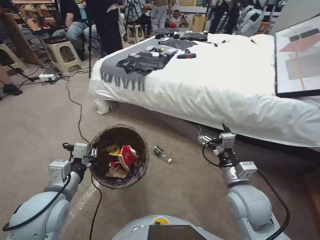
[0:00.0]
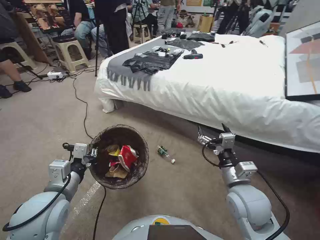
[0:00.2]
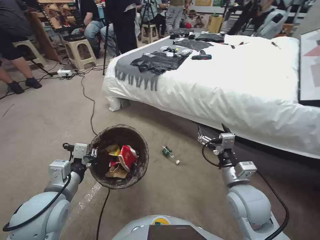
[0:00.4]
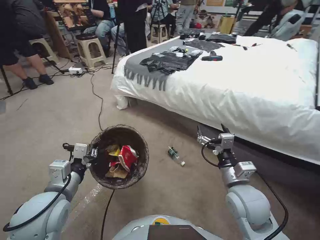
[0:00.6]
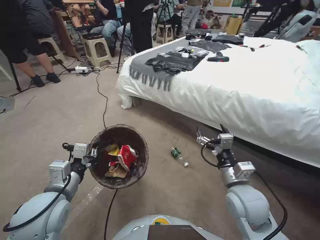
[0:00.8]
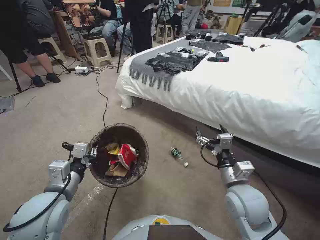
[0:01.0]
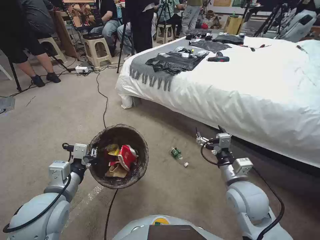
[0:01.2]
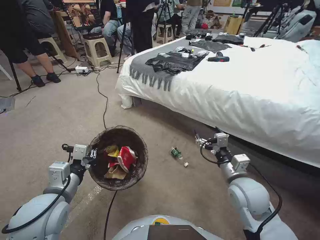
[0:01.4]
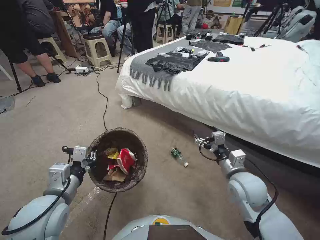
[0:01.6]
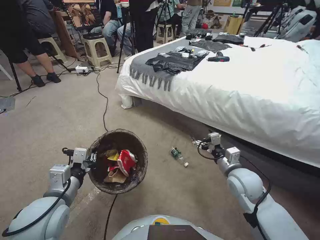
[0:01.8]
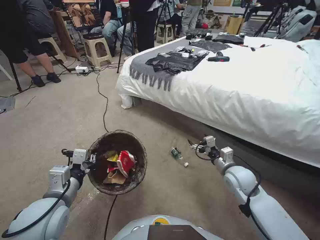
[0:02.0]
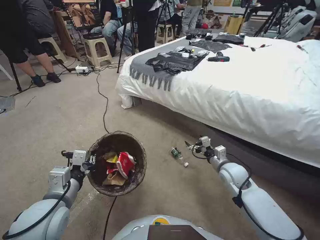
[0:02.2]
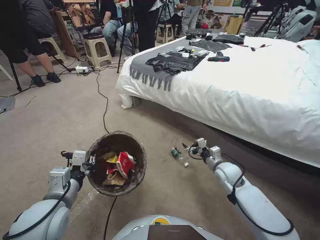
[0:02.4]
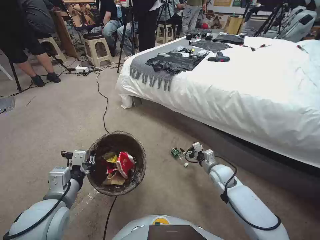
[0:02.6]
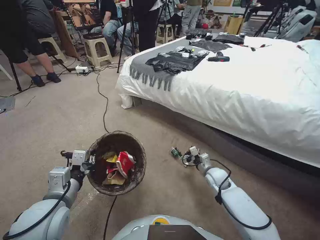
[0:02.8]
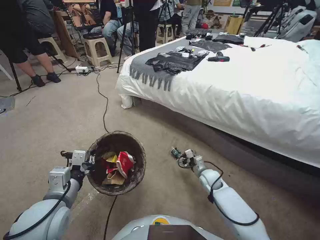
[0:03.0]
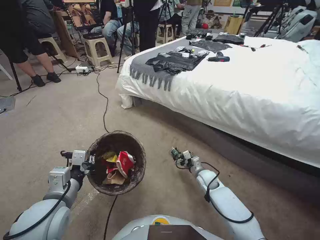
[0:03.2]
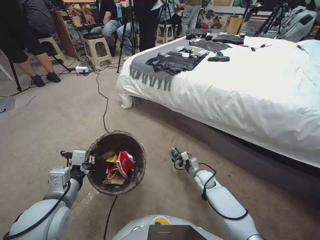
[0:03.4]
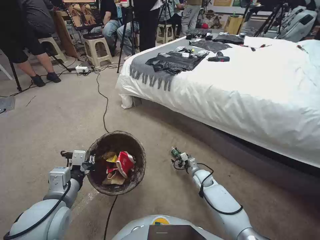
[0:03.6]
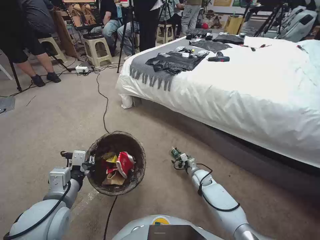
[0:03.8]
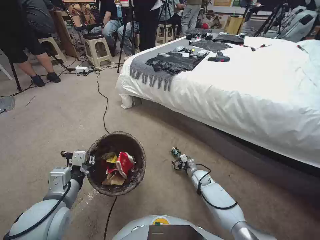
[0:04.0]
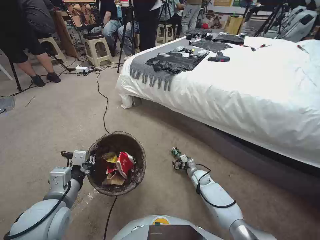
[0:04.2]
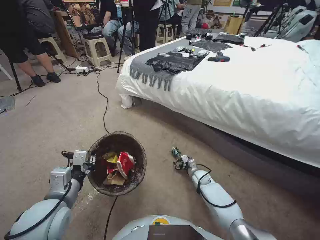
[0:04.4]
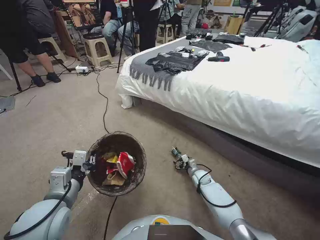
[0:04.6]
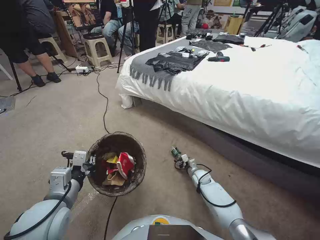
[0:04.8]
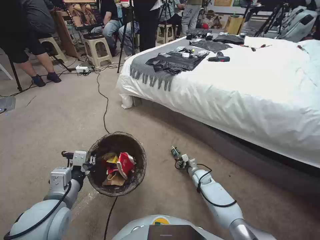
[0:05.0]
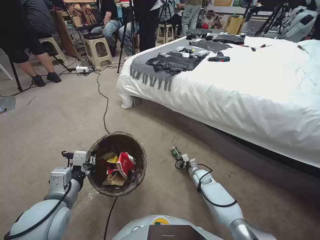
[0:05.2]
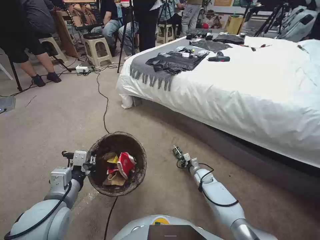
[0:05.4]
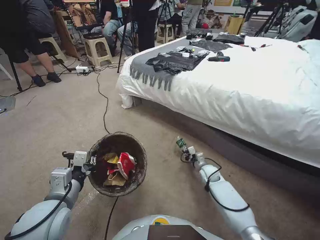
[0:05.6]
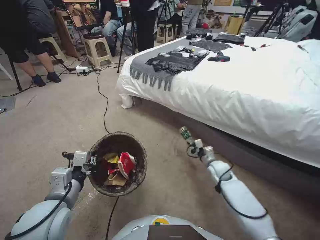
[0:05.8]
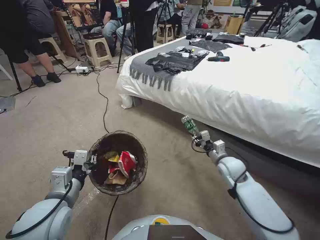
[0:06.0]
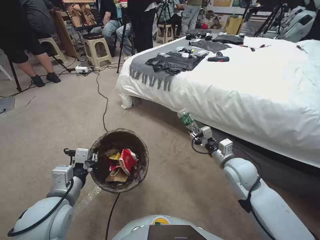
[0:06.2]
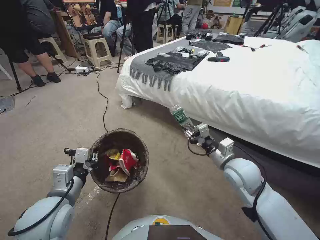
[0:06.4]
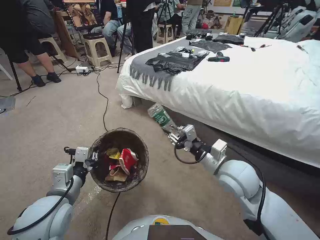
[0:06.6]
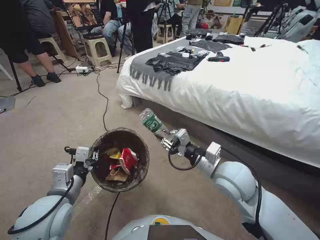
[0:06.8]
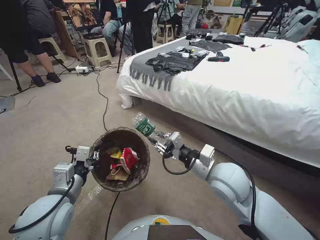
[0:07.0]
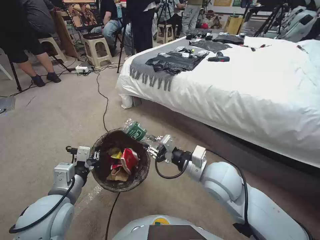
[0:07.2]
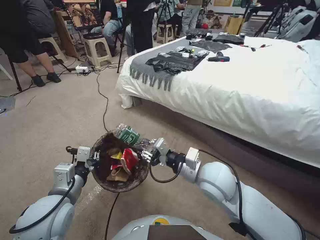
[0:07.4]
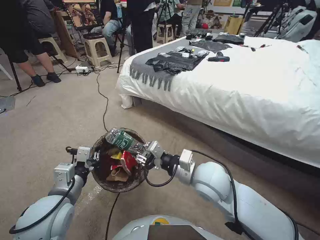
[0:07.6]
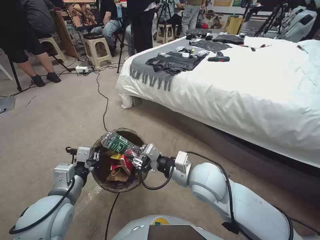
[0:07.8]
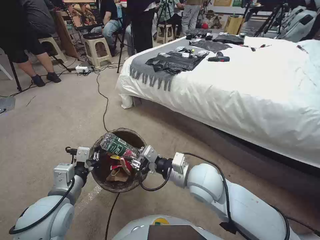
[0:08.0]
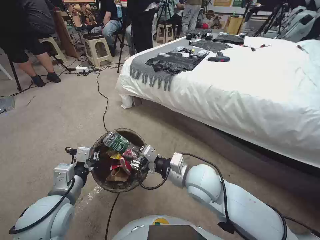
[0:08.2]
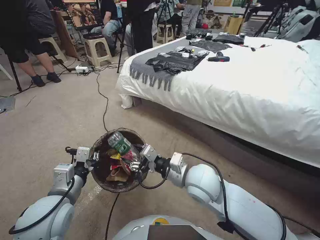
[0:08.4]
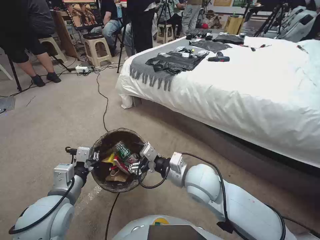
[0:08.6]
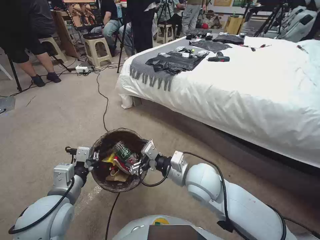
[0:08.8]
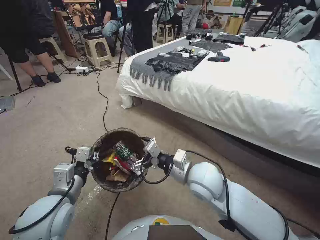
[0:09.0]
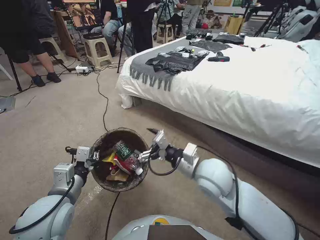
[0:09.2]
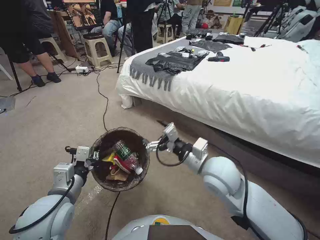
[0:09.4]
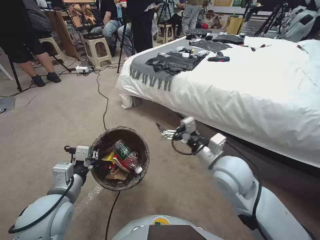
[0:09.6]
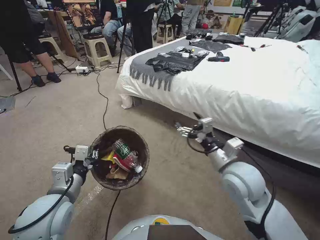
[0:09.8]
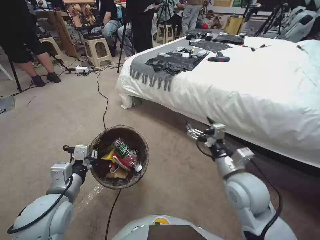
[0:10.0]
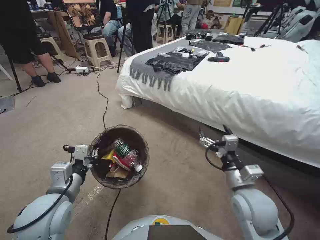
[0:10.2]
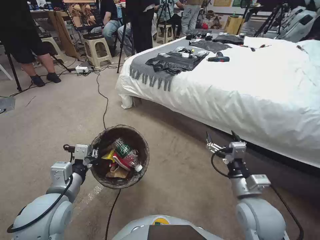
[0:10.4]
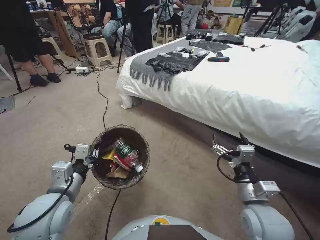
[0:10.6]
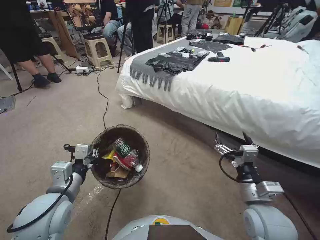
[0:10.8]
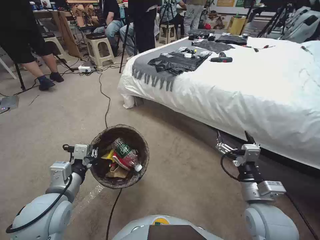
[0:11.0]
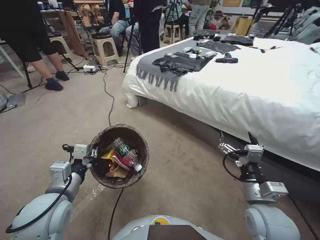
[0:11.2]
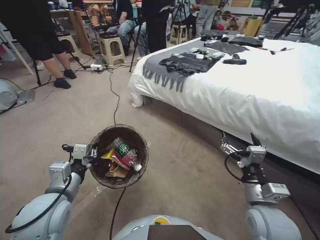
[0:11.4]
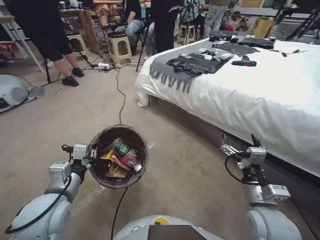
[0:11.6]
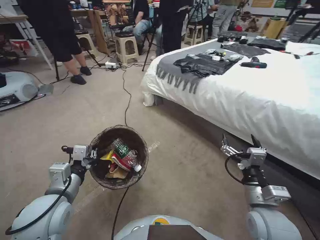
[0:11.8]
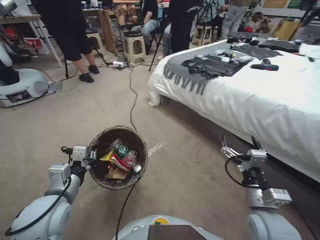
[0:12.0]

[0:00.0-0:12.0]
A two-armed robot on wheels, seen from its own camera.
Task of the whole recording: Pick up the trash bin, then pick up the garbage from the floor and place it into the trash bin.
0:00.0 to 0:01.6: The right gripper ends up roughly 5 cm from where it was.
0:01.6 to 0:03.0: The right gripper goes roughly 20 cm downward and forward.
0:03.0 to 0:04.4: The right gripper goes about 10 cm downward.
0:04.4 to 0:06.0: The right gripper goes about 20 cm upward, and closes its fingers.
0:06.0 to 0:07.6: The right gripper goes roughly 25 cm upward, to the left and backward.
0:07.6 to 0:09.0: The right gripper opens.
0:09.0 to 0:10.4: The right gripper moves to the right and backward, roughly 15 cm.

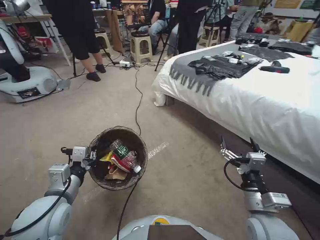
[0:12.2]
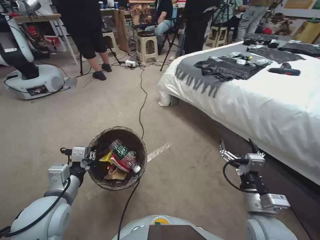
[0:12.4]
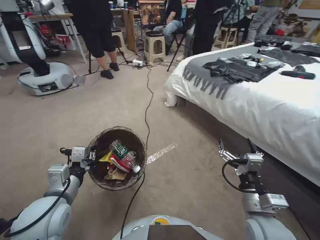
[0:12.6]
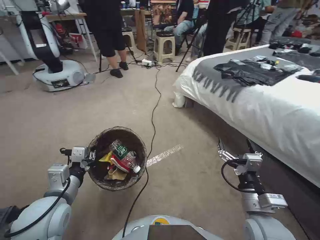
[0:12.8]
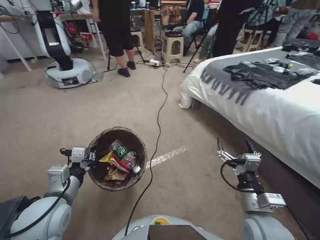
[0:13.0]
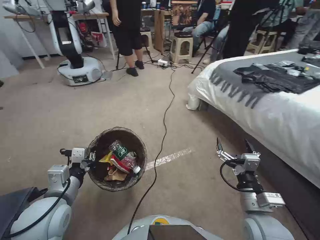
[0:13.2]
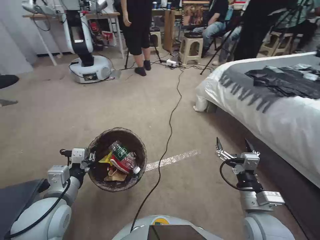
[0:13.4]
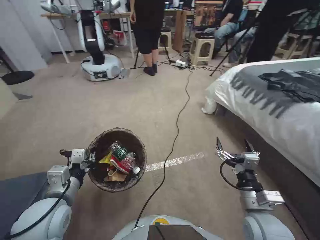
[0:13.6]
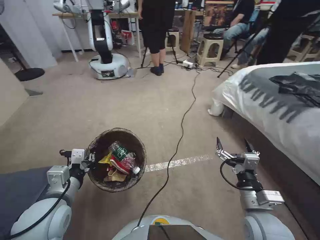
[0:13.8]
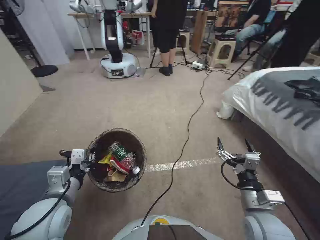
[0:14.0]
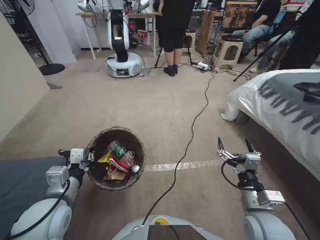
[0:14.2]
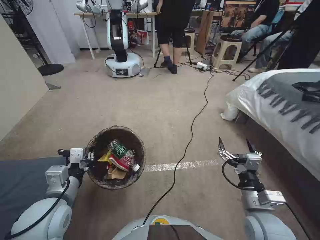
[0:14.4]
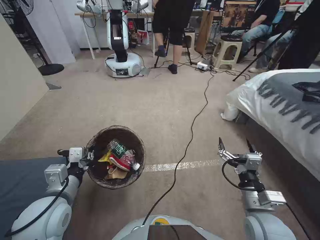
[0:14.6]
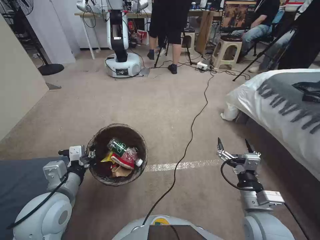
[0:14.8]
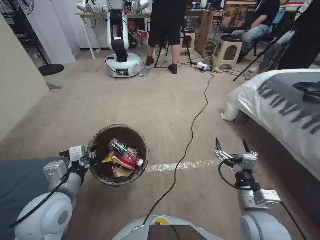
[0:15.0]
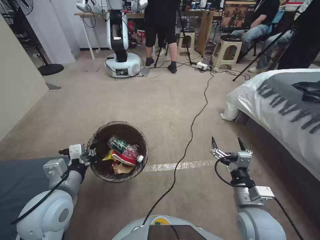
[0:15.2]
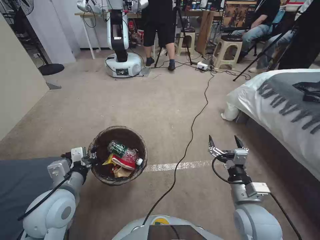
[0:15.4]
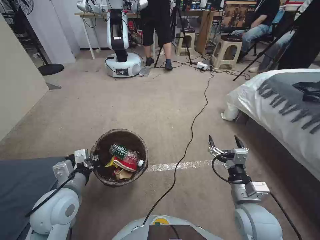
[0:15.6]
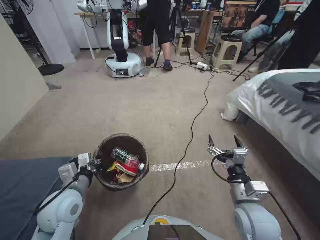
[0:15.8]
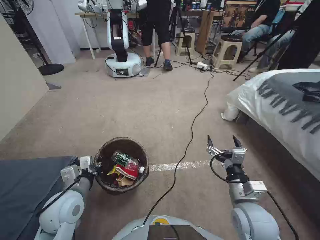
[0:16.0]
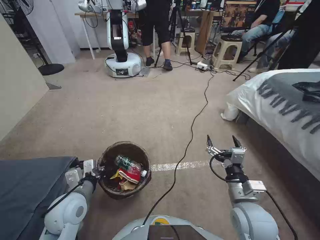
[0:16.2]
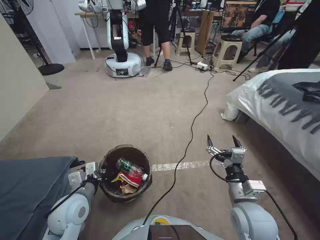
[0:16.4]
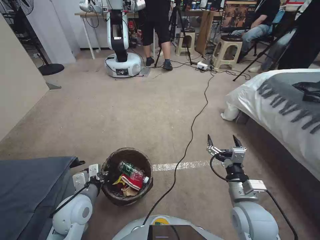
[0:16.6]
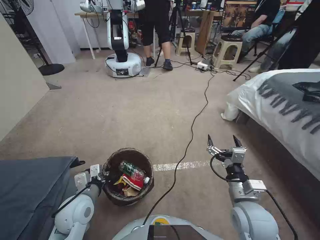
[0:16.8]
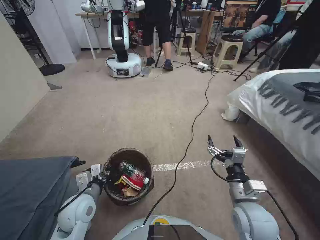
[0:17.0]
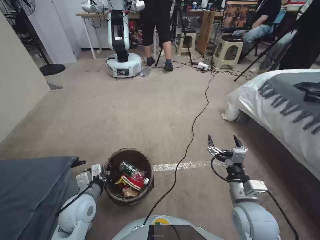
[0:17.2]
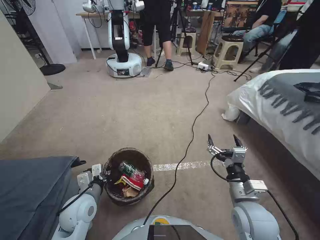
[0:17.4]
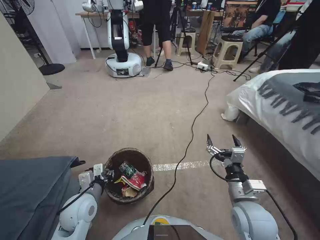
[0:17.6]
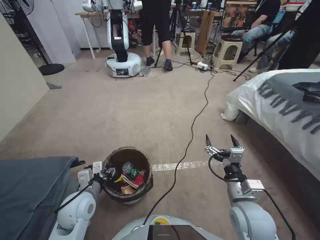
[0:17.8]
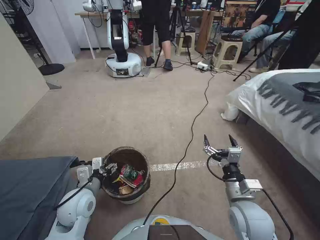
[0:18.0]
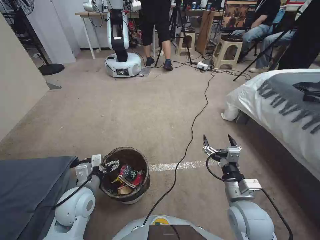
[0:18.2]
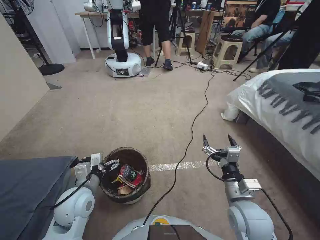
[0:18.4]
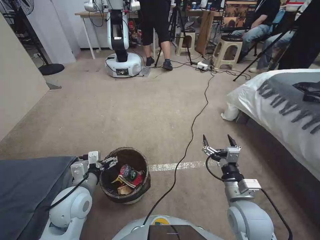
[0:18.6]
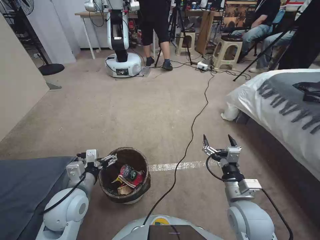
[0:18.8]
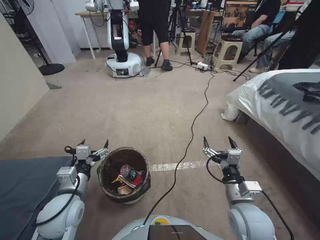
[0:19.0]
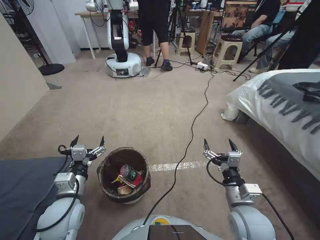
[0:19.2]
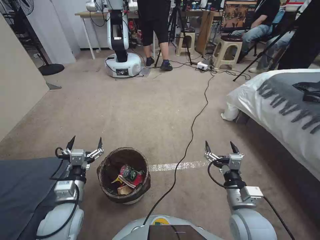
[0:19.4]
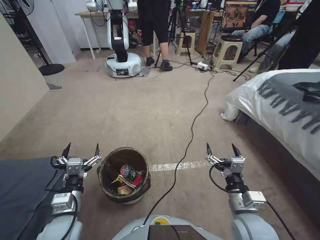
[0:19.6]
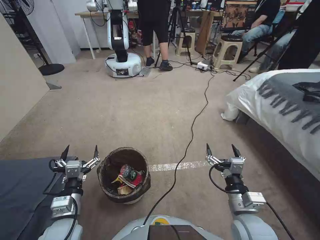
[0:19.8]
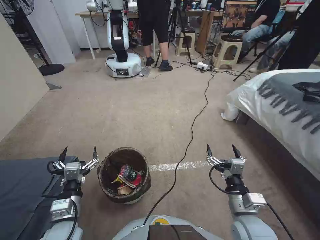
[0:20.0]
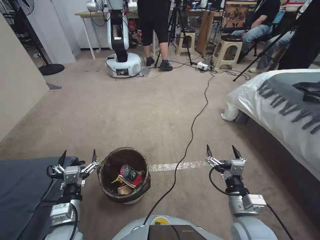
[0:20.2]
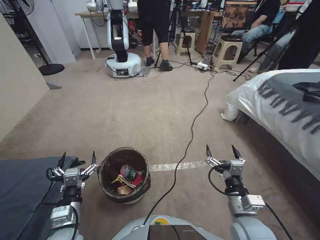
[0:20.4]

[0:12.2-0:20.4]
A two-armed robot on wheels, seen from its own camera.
Task of the whole recording: Pick up the trash bin, then pick up the garbage from the floor and place it into the trash bin.
0:15.4 to 0:17.2: The left gripper moves downward, about 10 cm.
0:17.2 to 0:18.8: The left gripper moves upward, about 5 cm, and opens up.
0:18.8 to 0:20.4: The left gripper shifts roughly 10 cm backward and downward.

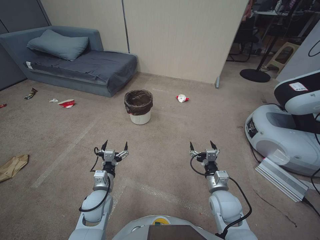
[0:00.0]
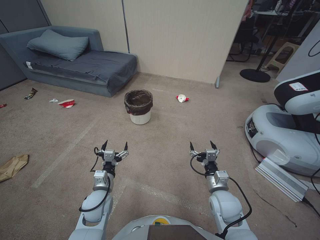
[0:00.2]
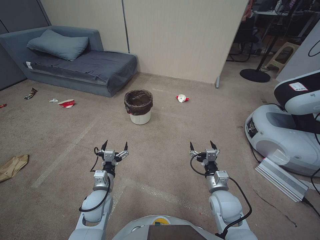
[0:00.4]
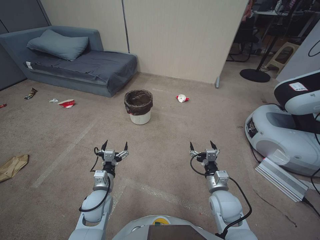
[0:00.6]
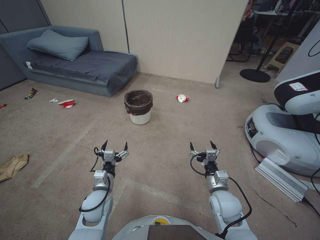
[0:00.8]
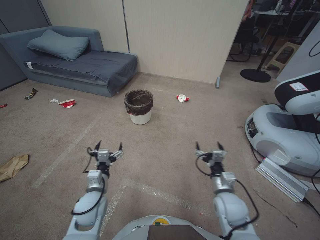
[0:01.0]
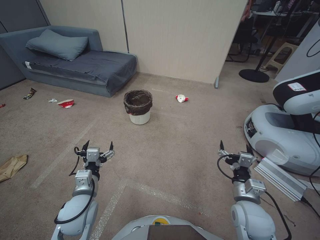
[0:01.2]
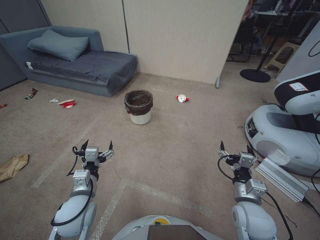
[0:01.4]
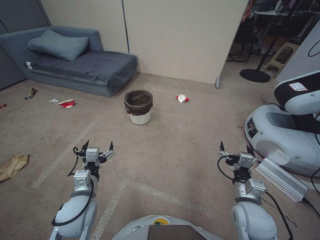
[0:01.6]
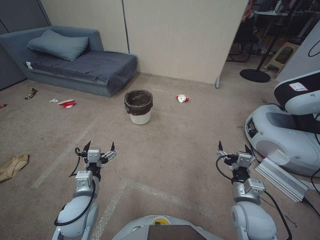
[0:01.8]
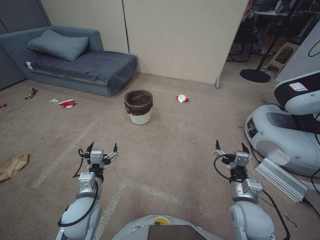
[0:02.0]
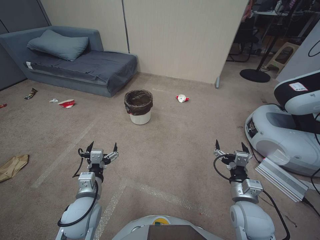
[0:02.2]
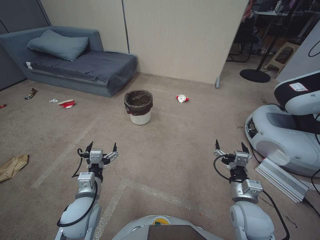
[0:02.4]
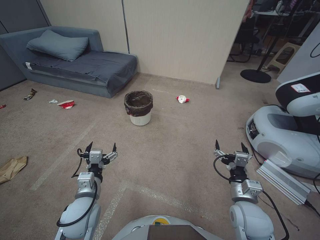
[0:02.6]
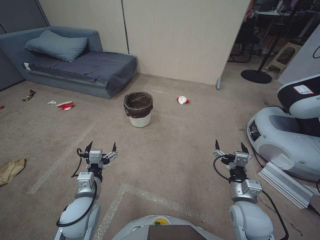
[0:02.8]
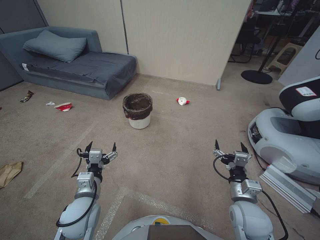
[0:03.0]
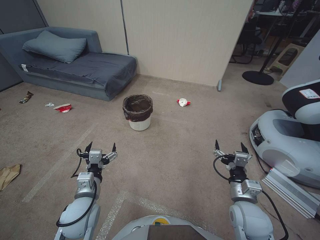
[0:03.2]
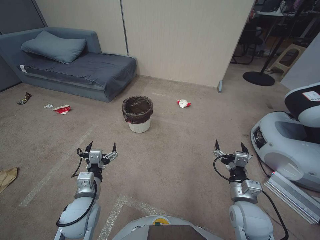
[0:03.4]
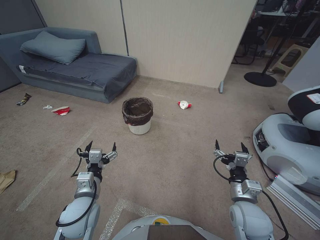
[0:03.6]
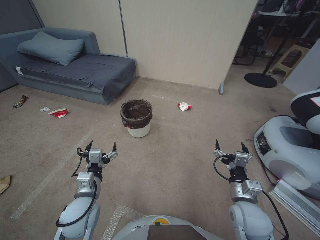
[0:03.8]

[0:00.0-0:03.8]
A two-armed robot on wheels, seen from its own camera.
Task of the whole recording: Pick up the trash bin, then pick up the garbage from the floor and place it into the trash bin.
0:01.2 to 0:02.6: There are only small adjustments of the grippers.
0:02.6 to 0:03.8: Neither gripper changes place.
